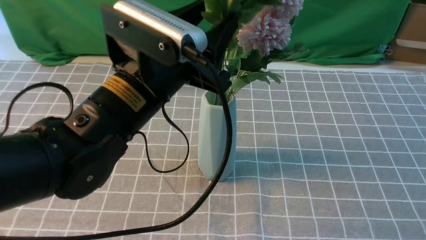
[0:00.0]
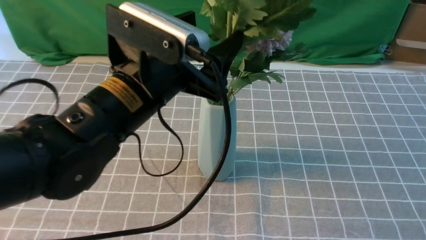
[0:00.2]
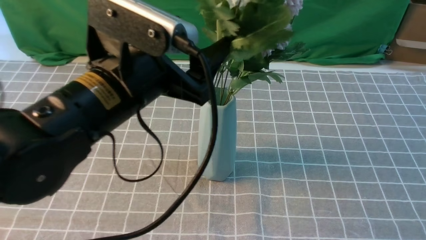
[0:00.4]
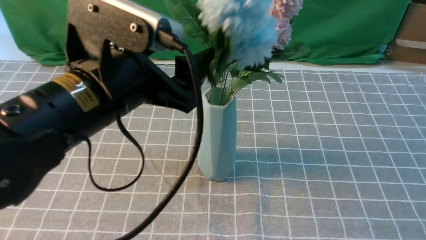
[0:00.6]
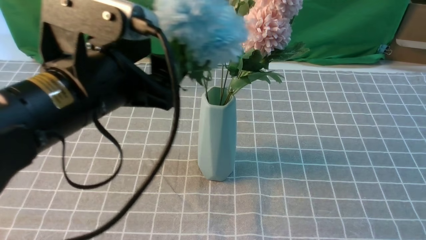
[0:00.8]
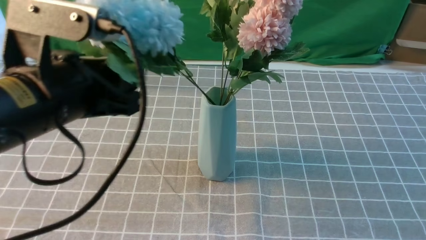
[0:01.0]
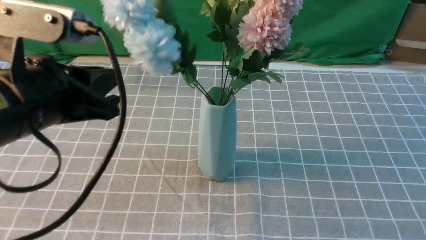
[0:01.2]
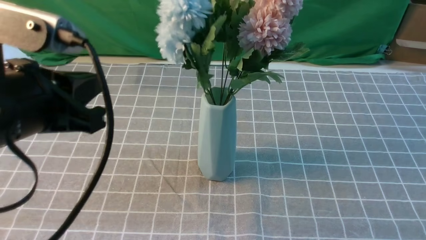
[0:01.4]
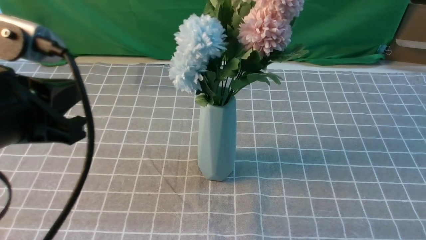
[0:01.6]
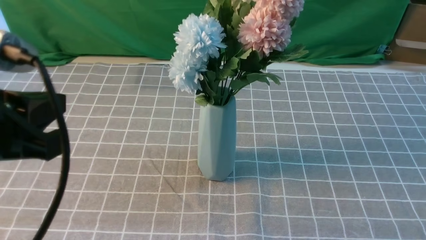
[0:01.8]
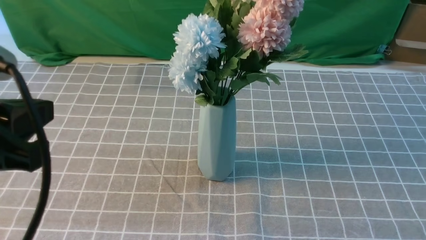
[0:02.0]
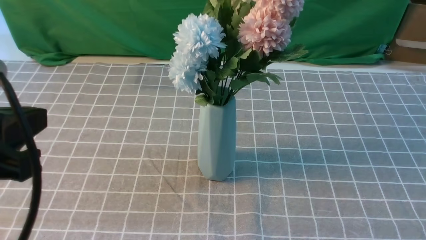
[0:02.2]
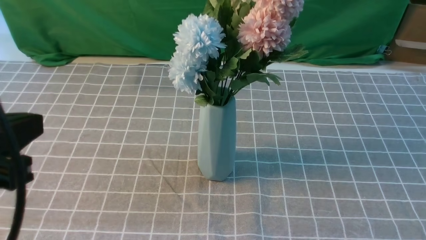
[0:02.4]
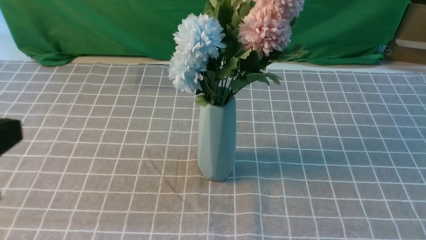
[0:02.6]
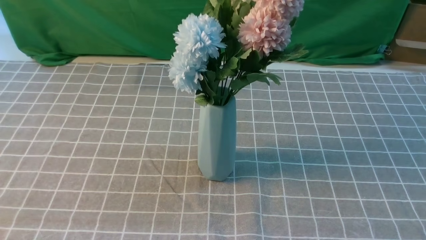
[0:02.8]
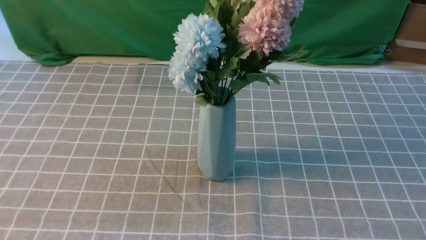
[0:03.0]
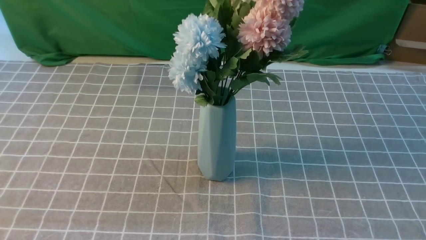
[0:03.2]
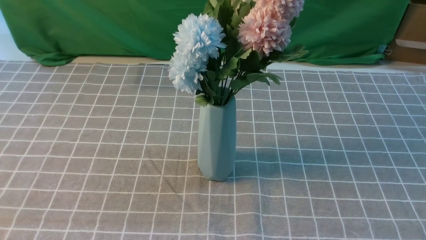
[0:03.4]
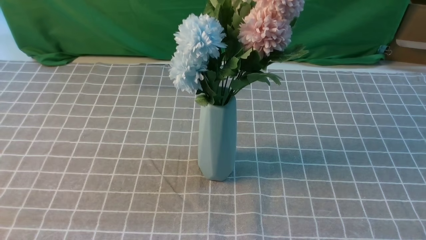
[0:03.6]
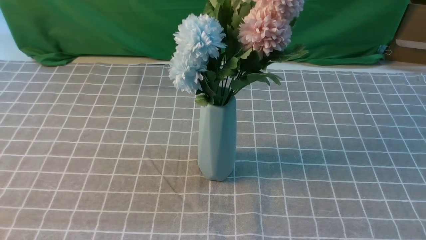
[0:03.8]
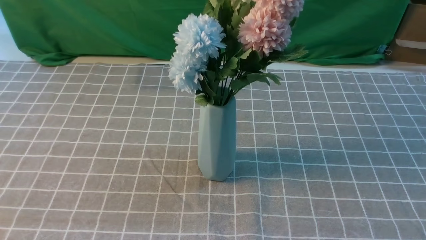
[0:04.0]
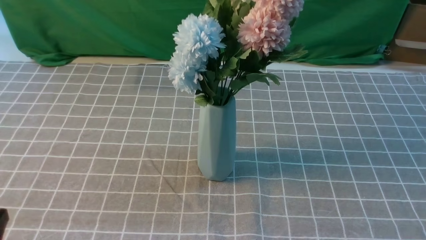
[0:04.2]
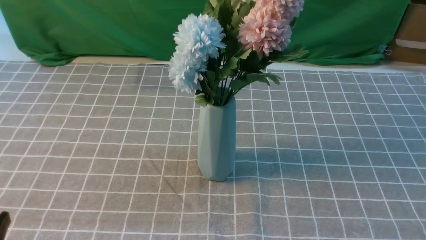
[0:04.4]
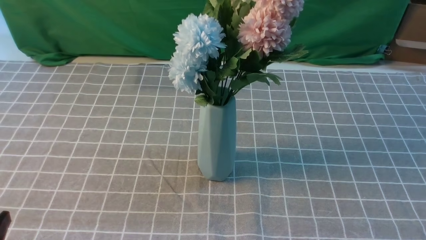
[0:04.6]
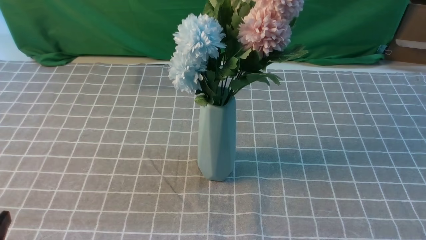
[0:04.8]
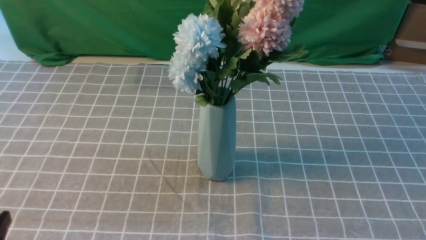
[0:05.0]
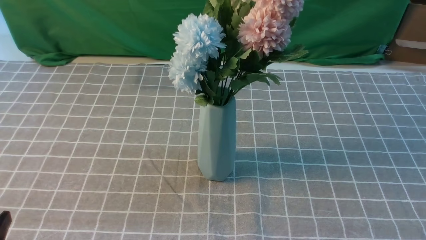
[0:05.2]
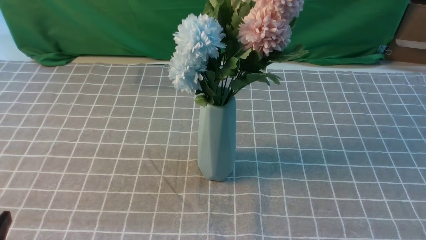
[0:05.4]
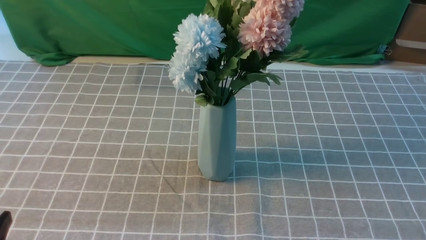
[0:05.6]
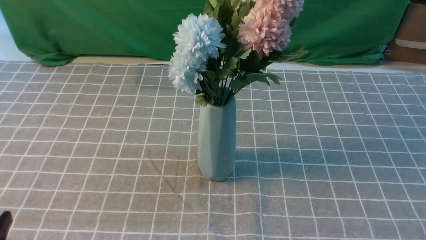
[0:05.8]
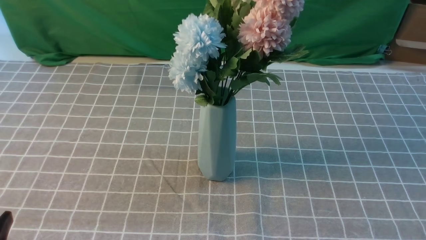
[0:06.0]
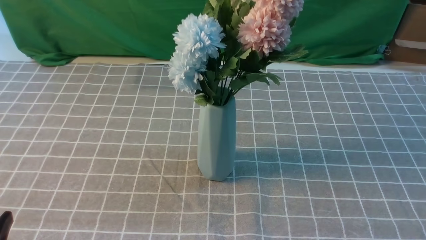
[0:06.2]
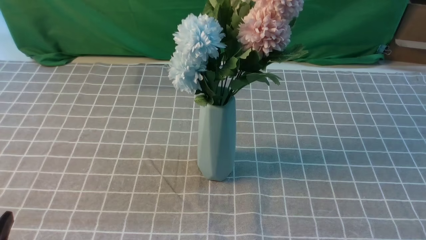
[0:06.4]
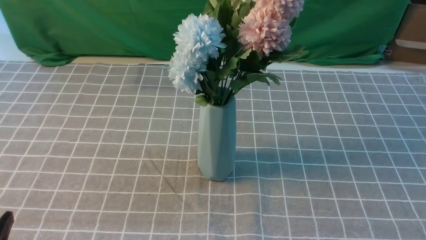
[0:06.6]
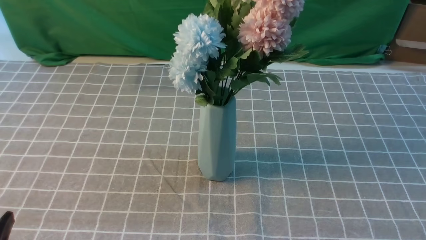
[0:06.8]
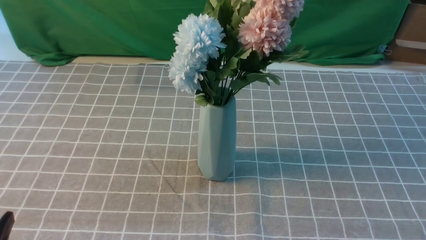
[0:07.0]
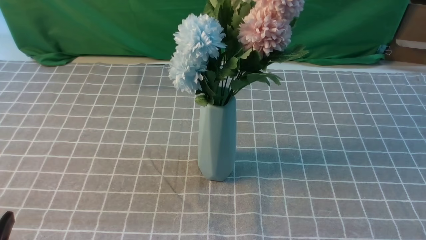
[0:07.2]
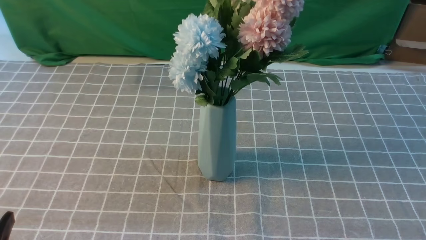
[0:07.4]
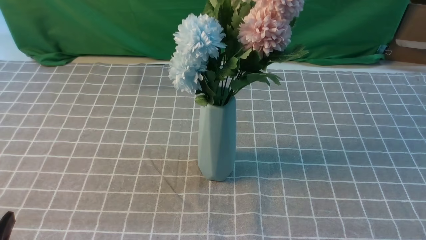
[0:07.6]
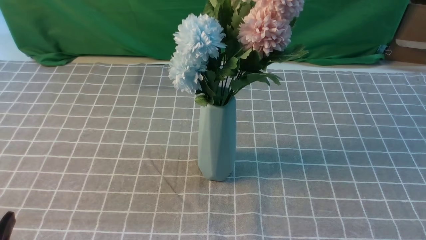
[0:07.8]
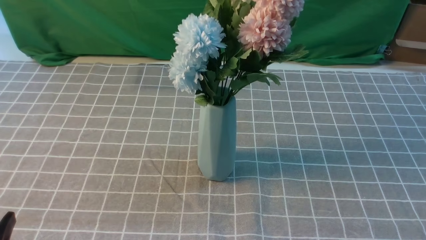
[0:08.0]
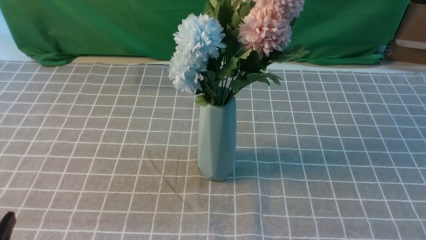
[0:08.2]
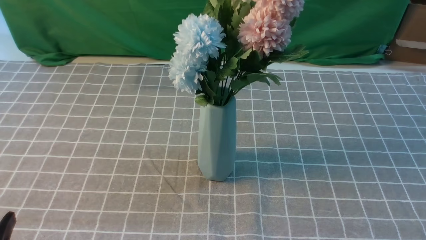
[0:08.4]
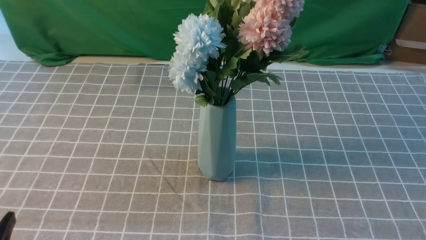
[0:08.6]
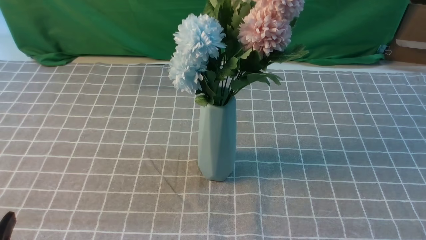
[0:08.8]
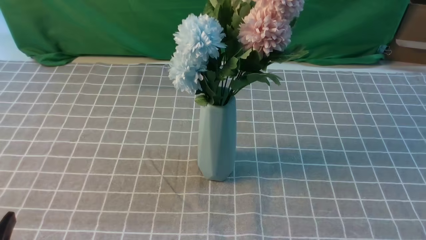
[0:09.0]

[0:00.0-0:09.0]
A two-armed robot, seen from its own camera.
Task of the whole recording: insert the flowers into the vase on the table with the grey tablecloth.
0:00.0 to 0:01.6: The left gripper moves to the left and backward, about 15 cm, and closes up.
0:01.6 to 0:03.0: The right gripper goes roughly 15 cm backward and to the right, while the left gripper moves backward, approximately 10 cm.
0:07.6 to 0:09.0: Both grippers stay put.
